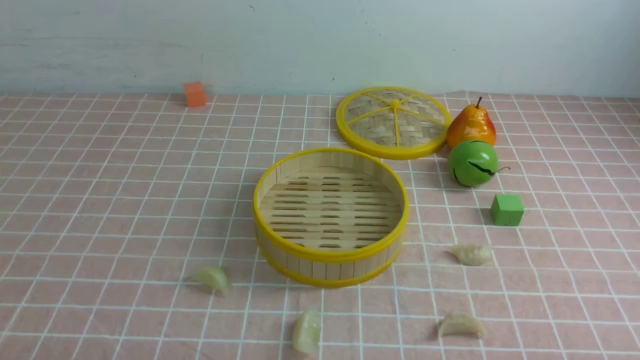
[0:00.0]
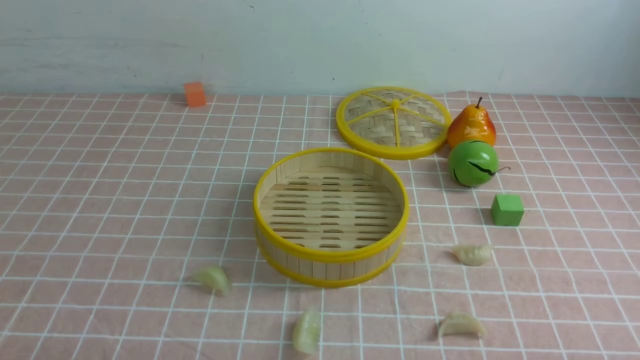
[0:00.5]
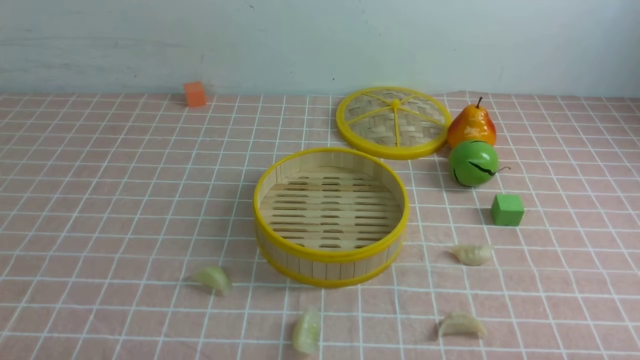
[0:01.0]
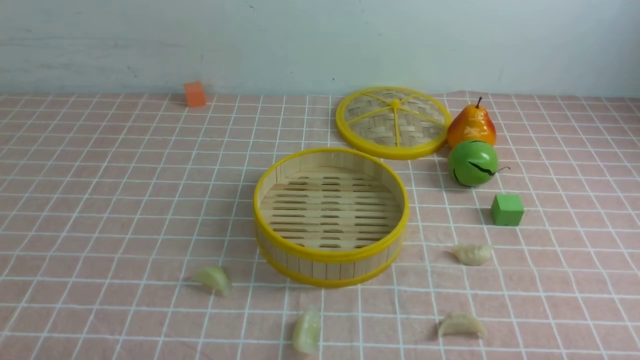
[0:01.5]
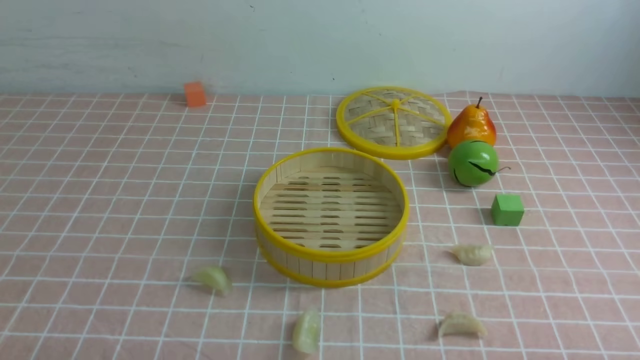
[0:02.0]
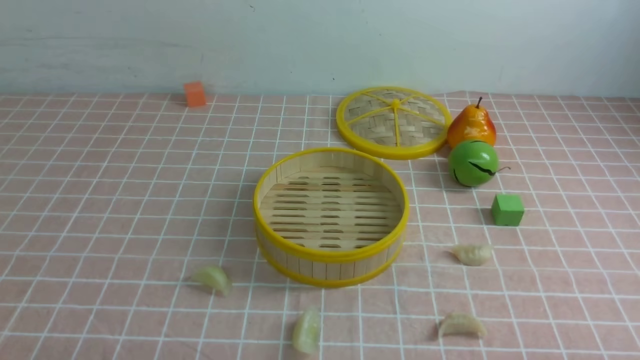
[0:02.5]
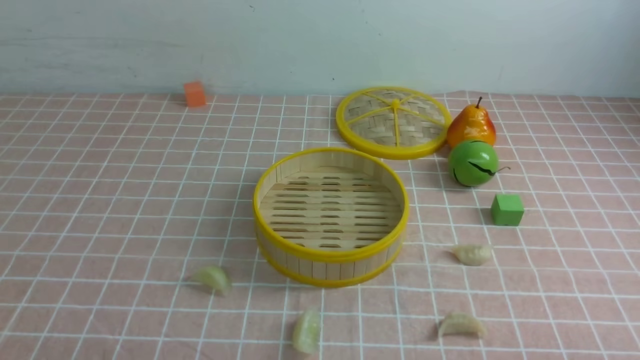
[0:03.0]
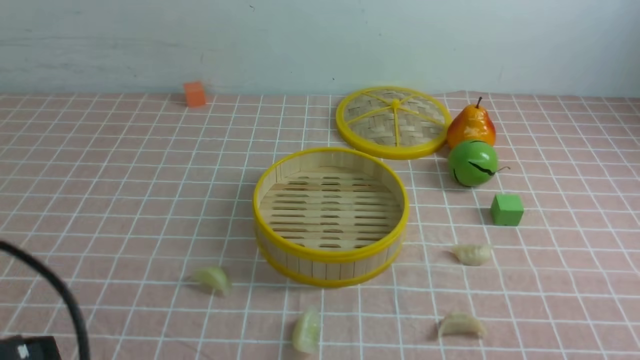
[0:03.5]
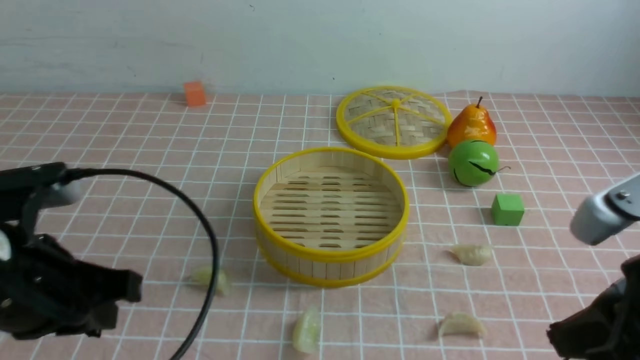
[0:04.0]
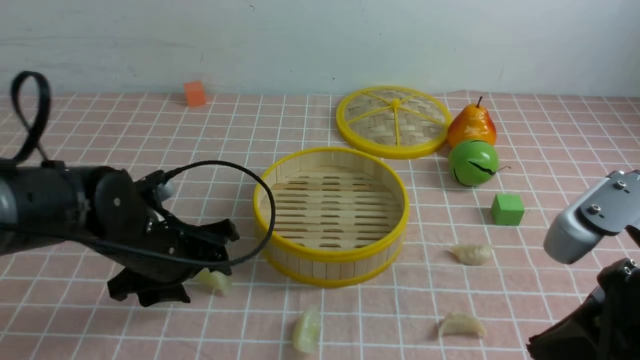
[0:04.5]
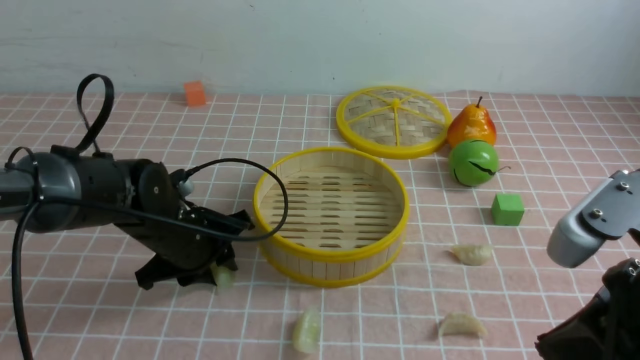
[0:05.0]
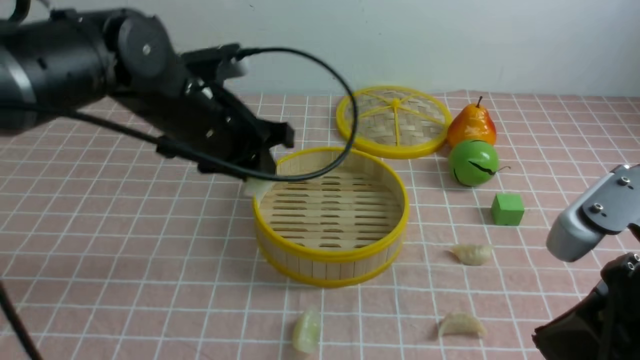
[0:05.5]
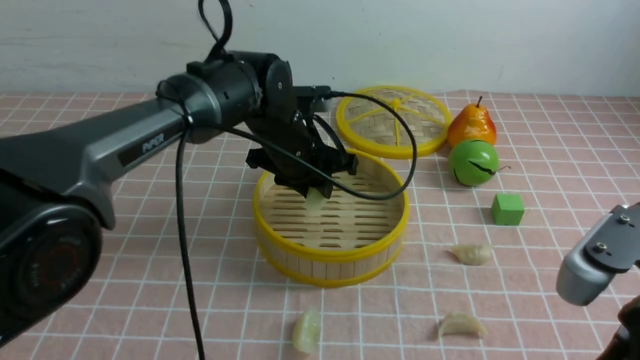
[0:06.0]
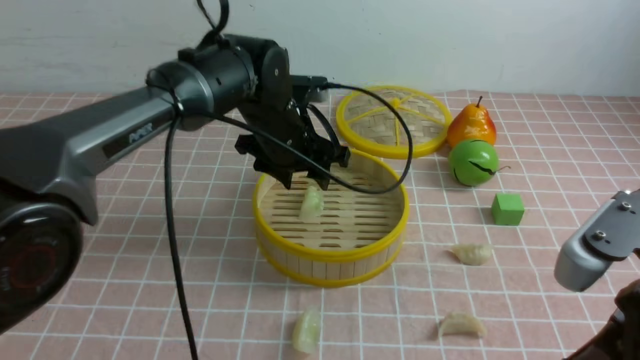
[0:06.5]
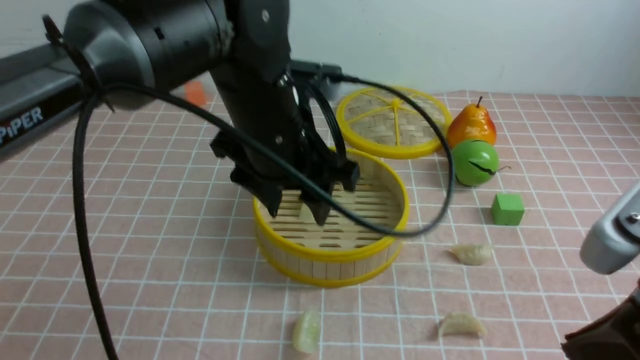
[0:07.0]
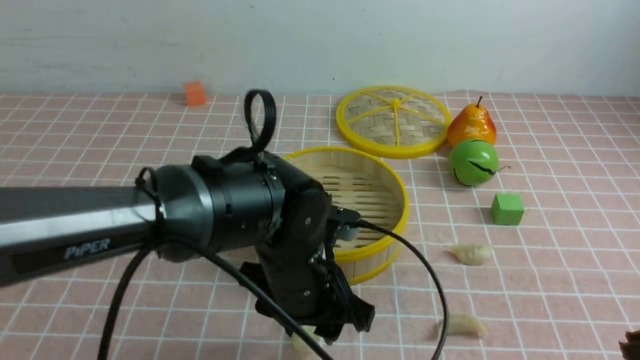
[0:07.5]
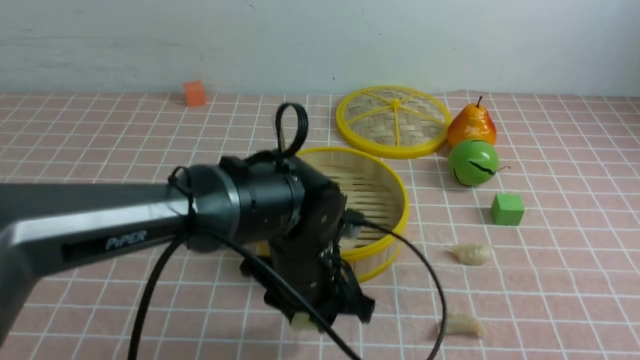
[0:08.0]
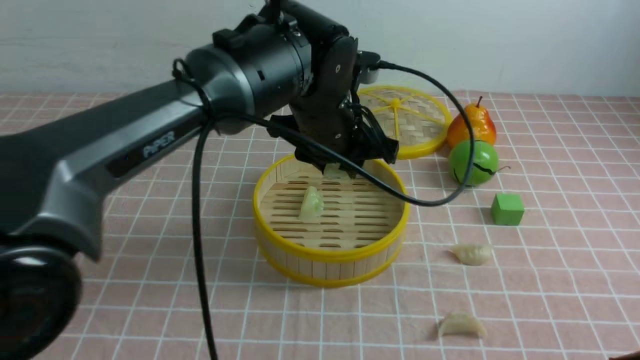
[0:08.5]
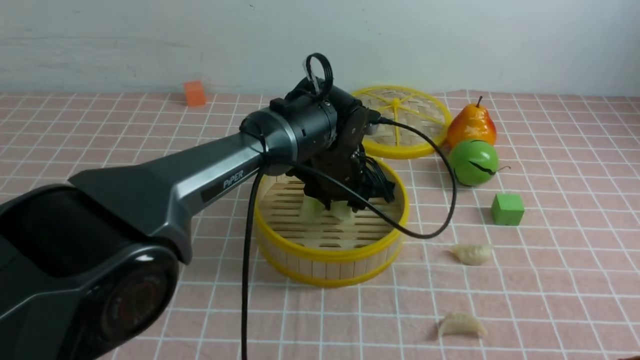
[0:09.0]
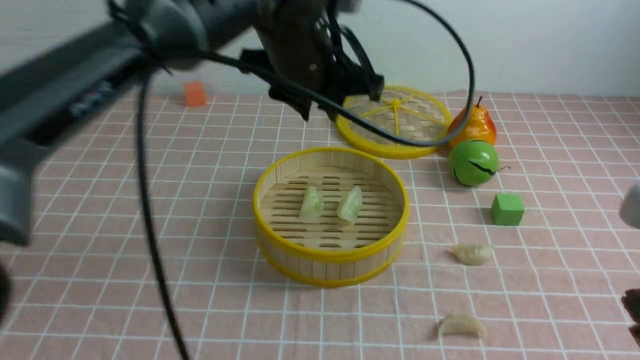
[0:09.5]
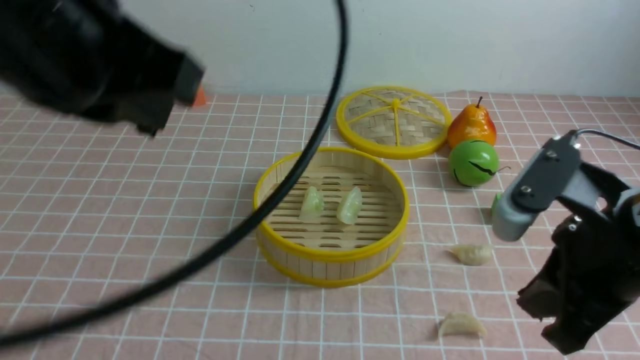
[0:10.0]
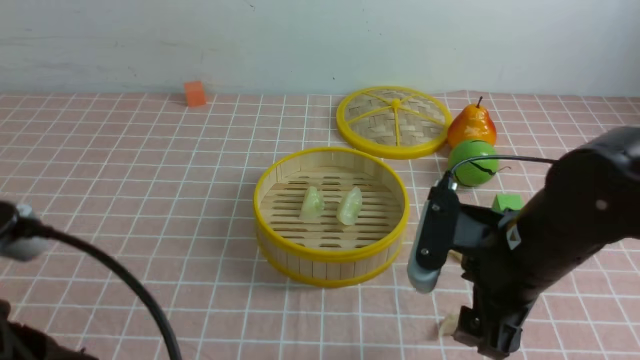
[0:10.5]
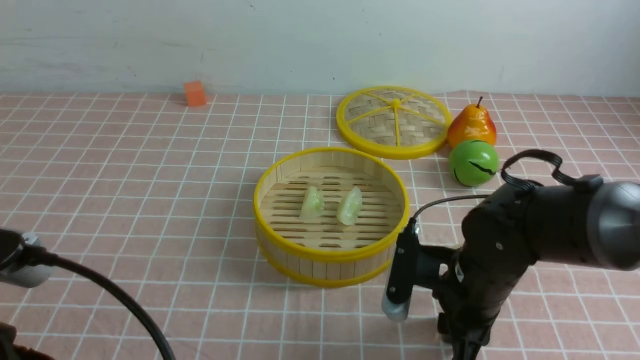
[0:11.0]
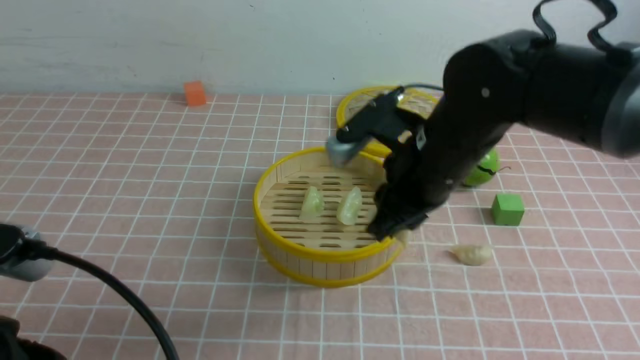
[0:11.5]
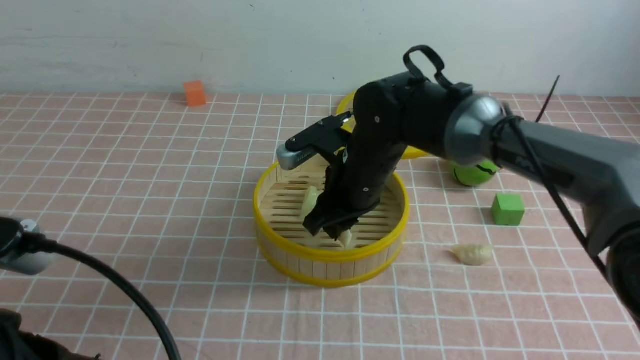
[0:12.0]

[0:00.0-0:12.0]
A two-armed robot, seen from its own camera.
Task of the whole recording: put the dumplings into the steamer on the table with the pink tablecloth.
Step, 0:00.0 to 0:05.0: use the left arm to grab a dumpling.
Step, 0:05.5 to 0:06.5: use the left arm to put the dumpling into the steamer.
Step, 0:07.0 to 0:07.5: use the left arm to grab a dumpling.
Step, 0:08.0 to 0:09.0: use the left arm to put the dumpling into the steamer.
Step, 0:09.5 to 0:11.0: use the right arm to grab a dumpling.
0:02.0 to 0:04.0: The left gripper moves upward and forward, some 15 cm. The right gripper goes roughly 20 cm upward, forward and to the left, and closes its fingers.
0:04.0 to 0:06.0: The left gripper heads forward and to the right, covering roughly 30 cm, and opens and closes again.
0:06.0 to 0:08.0: The right gripper heads backward, covering approximately 5 cm, while the left gripper is displaced backward and downward by approximately 15 cm, and opens and closes again.
0:08.0 to 0:10.0: The left gripper goes up and down, some 25 cm each way, reversing 2 times, and closes up; the right gripper heads forward, covering some 10 cm.
0:10.0 to 0:12.0: The right gripper shifts approximately 25 cm forward and to the left, and opens. The left gripper travels downward, backward and to the left by some 20 cm.

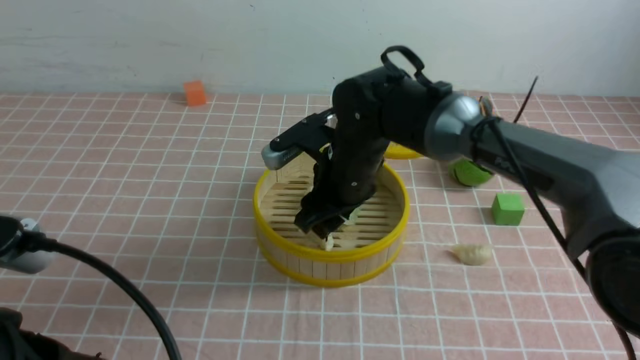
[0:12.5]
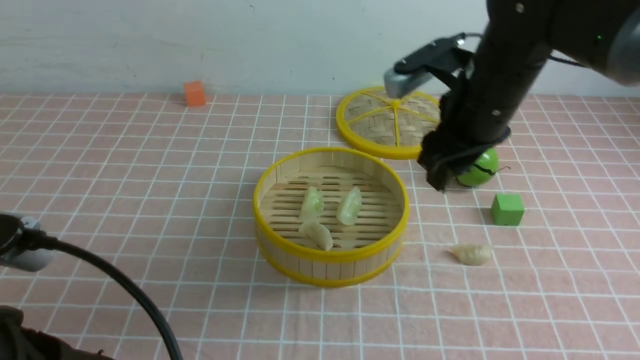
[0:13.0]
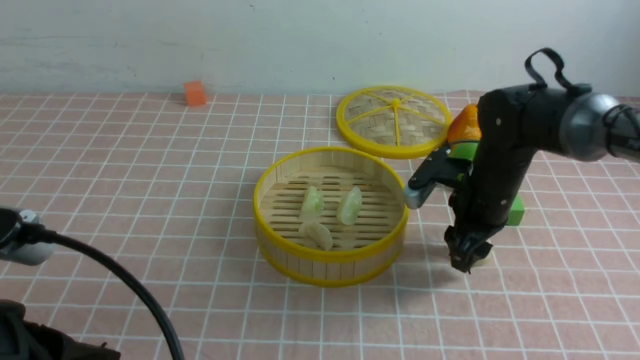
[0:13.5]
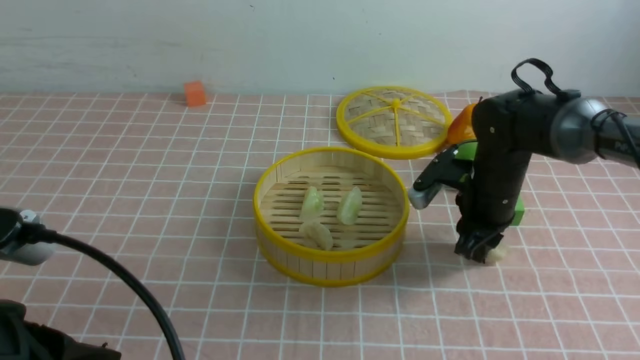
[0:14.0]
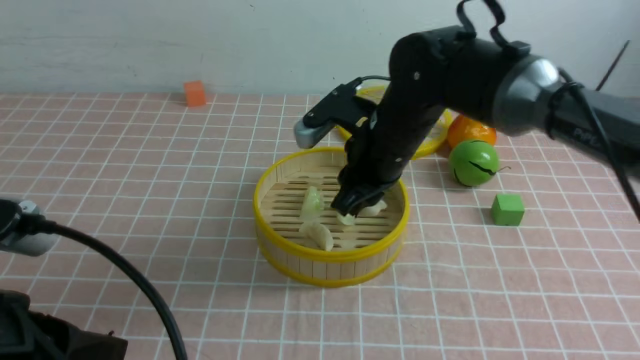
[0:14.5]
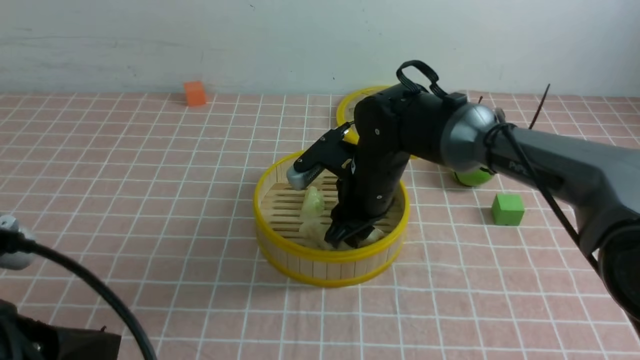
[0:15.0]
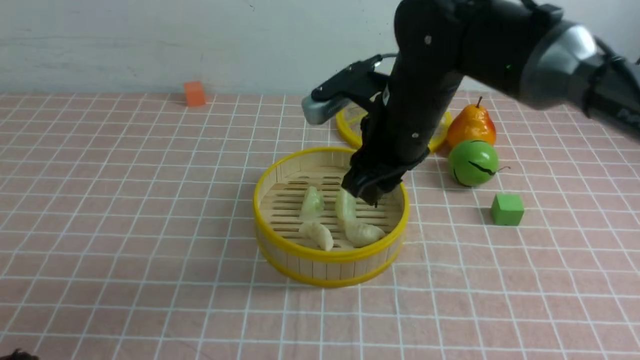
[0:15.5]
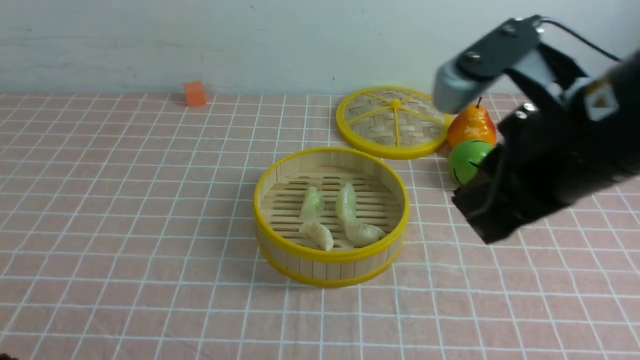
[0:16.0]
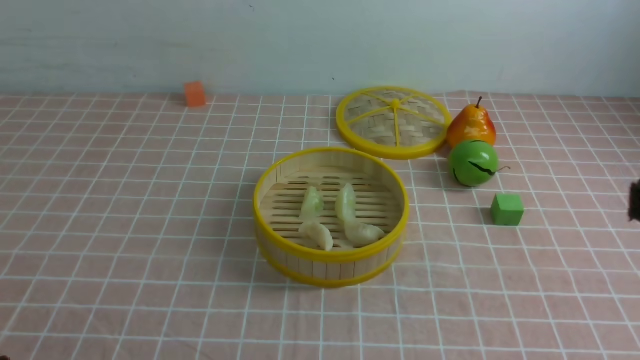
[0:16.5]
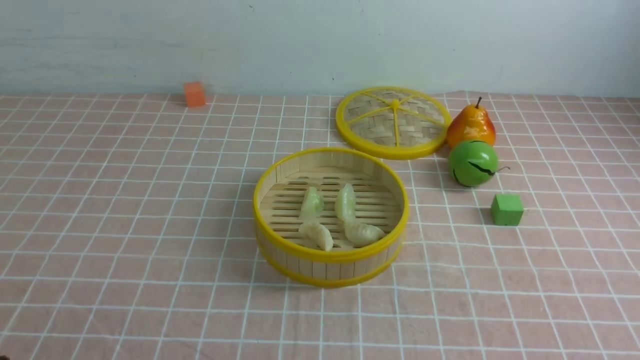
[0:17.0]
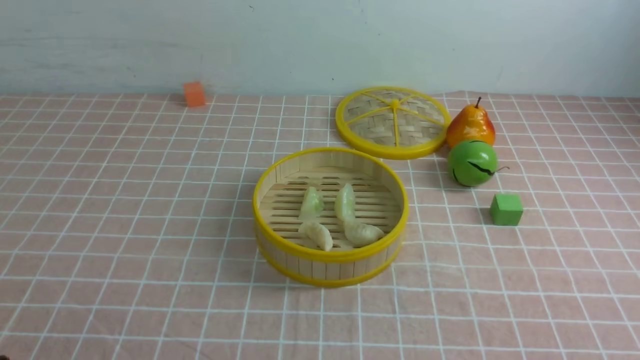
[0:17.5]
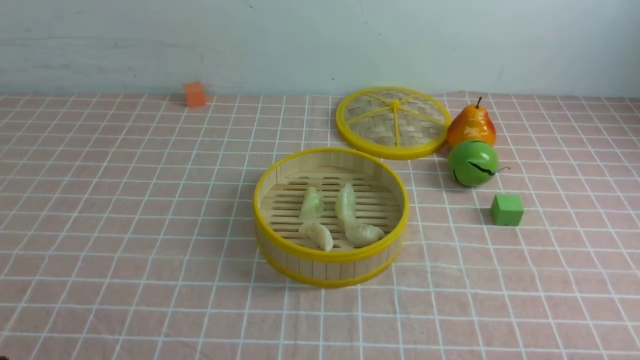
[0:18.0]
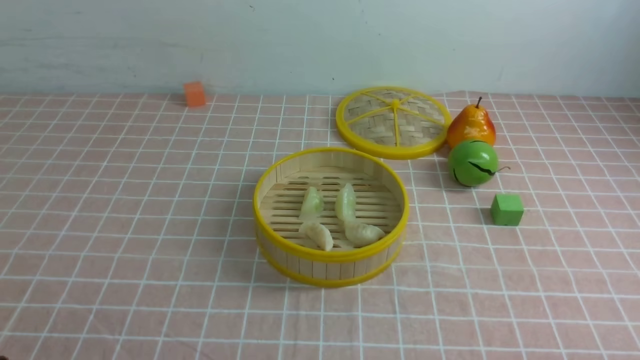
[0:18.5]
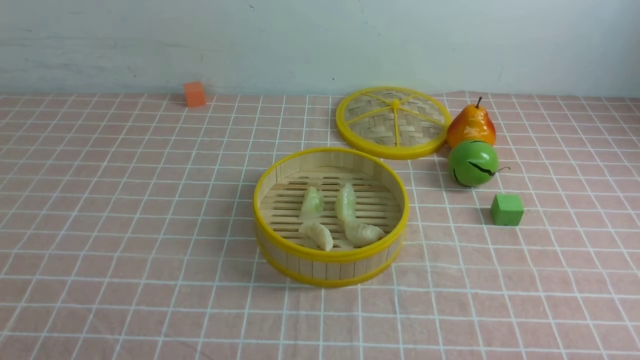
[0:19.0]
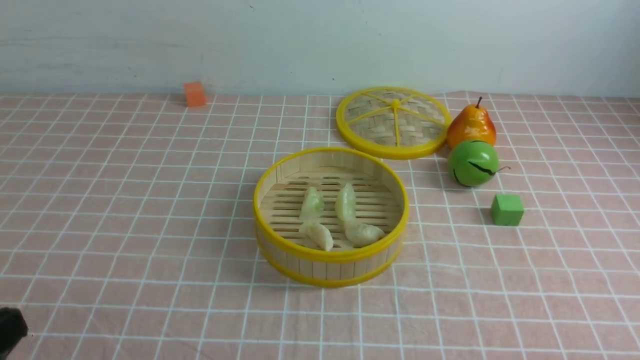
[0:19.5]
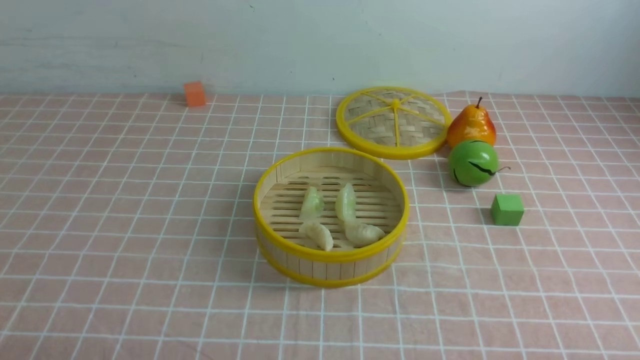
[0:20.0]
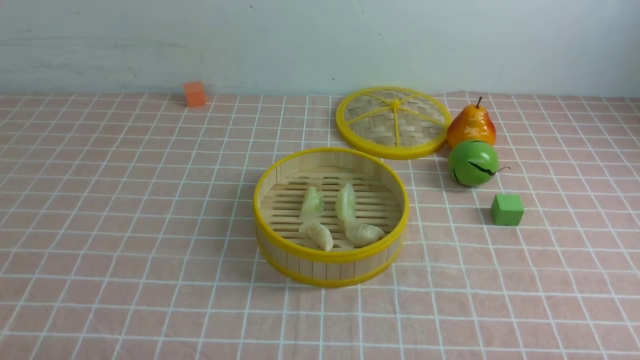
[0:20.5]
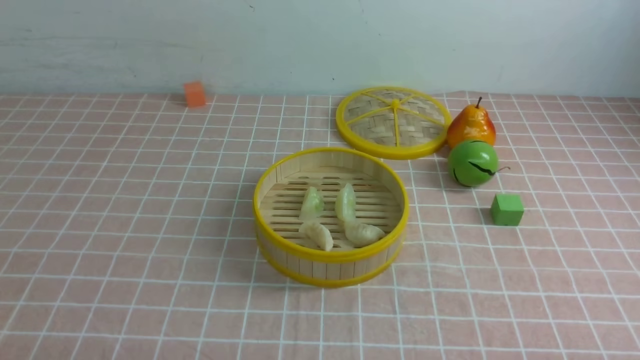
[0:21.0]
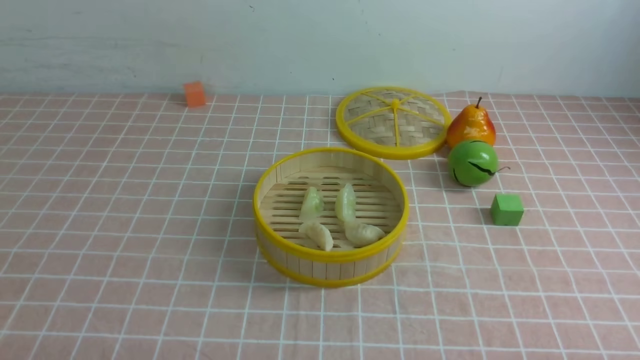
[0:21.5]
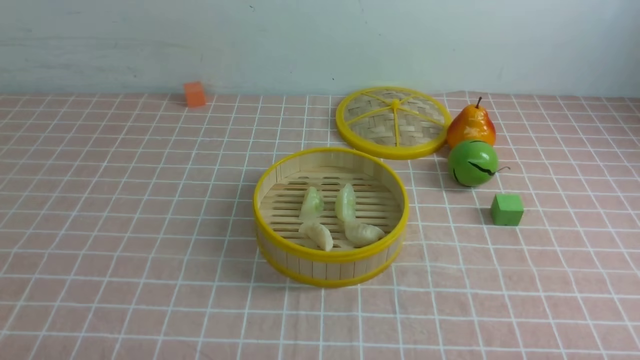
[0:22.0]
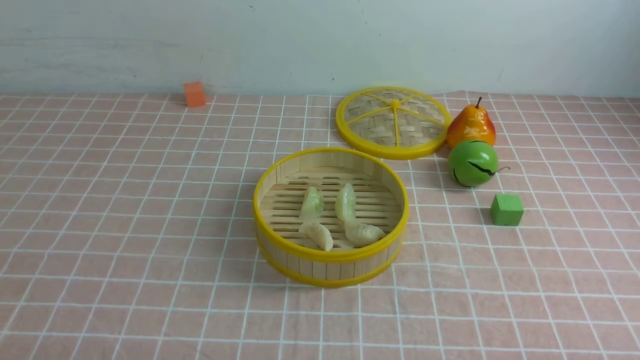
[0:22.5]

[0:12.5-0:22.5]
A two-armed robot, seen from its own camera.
Task of the whole recording: put the dumplings into the steamer on the table with the pink tablecloth.
Step, 0:13.0 to 0:14.0: use the right arm to grab a dumpling.
Step, 0:14.5 to 0:15.5: use the right arm to put the dumpling into the steamer.
0:12.5 to 0:14.5: The right gripper heads to the right, covering approximately 5 cm, and closes its fingers.
0:14.5 to 0:16.5: The left gripper goes about 10 cm backward and to the left, while the right gripper travels backward, to the right and upward by roughly 35 cm, and closes.
0:16.5 to 0:18.5: The right gripper shifts some 20 cm downward.
0:20.5 to 0:22.5: The two grippers keep their place.
